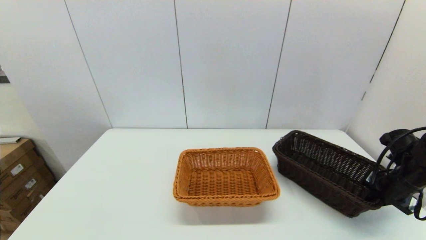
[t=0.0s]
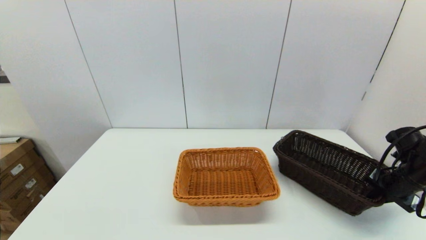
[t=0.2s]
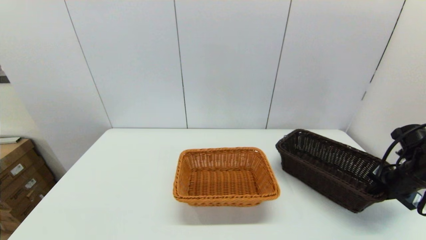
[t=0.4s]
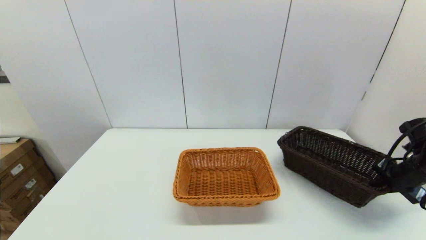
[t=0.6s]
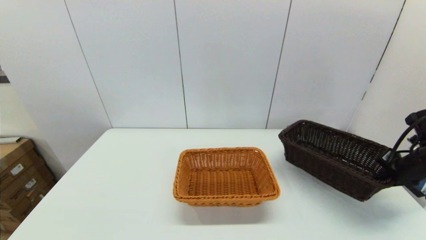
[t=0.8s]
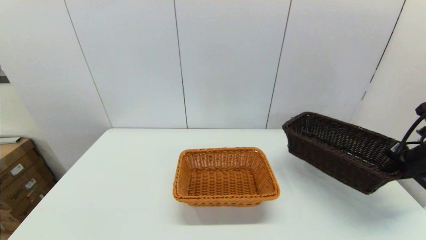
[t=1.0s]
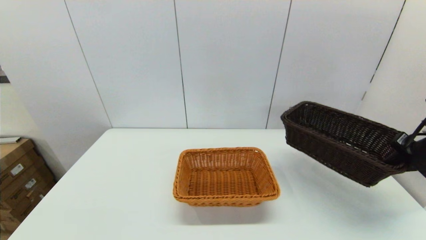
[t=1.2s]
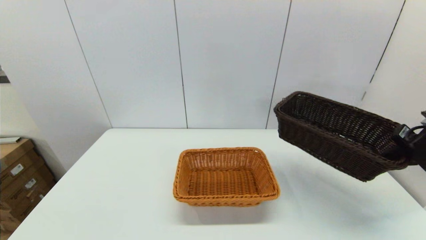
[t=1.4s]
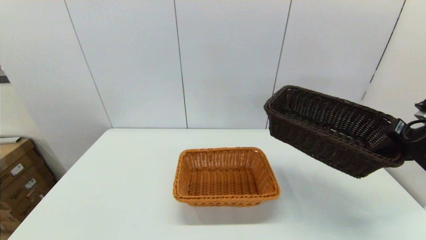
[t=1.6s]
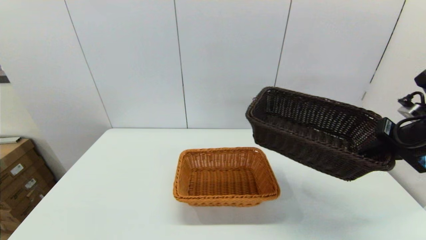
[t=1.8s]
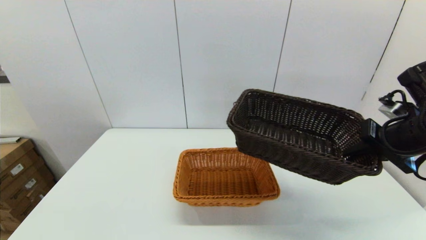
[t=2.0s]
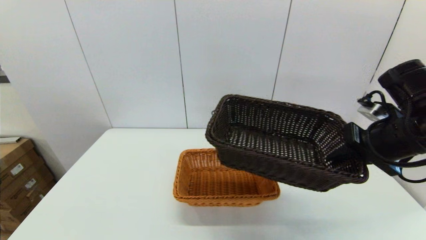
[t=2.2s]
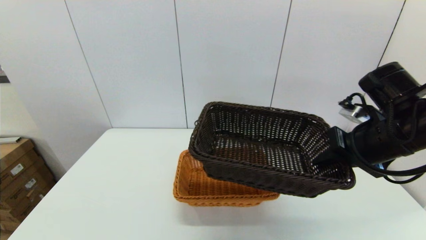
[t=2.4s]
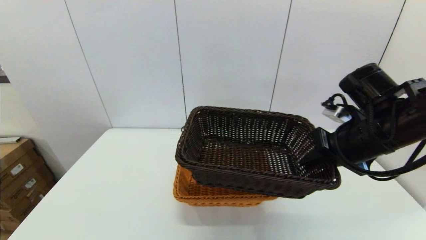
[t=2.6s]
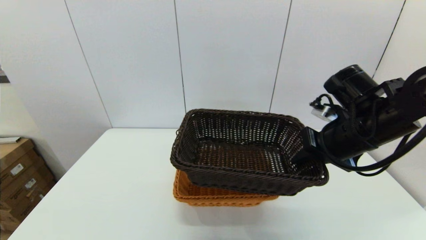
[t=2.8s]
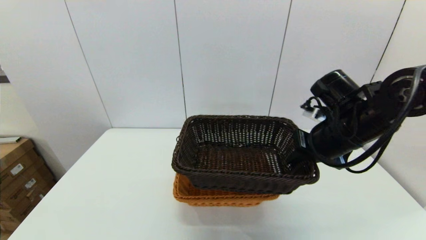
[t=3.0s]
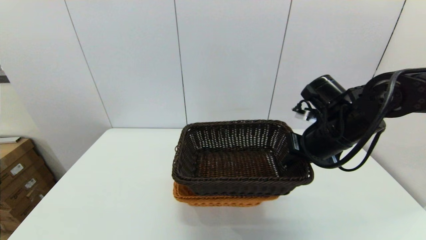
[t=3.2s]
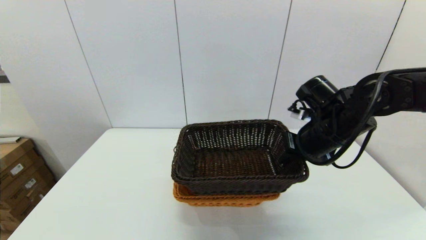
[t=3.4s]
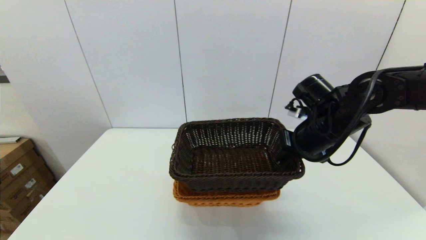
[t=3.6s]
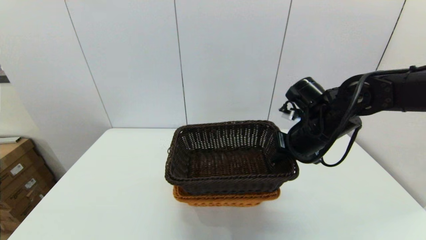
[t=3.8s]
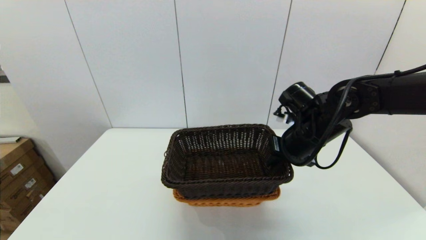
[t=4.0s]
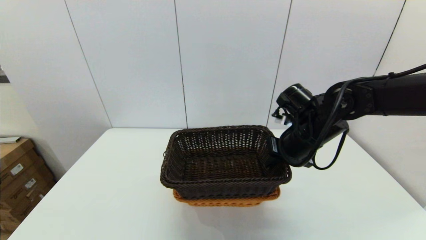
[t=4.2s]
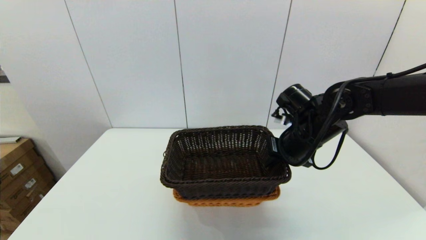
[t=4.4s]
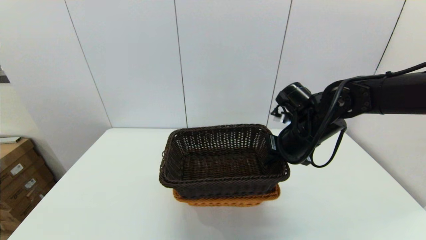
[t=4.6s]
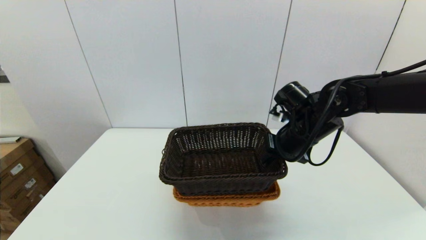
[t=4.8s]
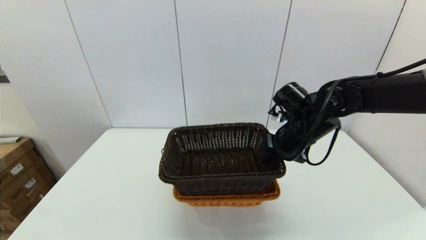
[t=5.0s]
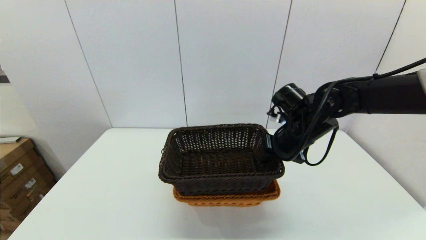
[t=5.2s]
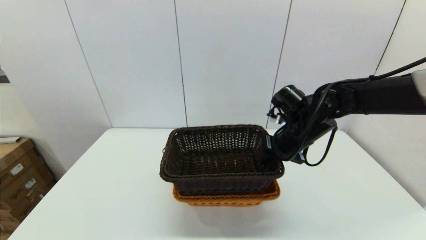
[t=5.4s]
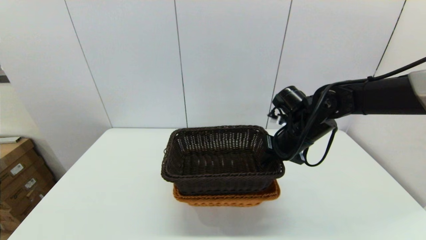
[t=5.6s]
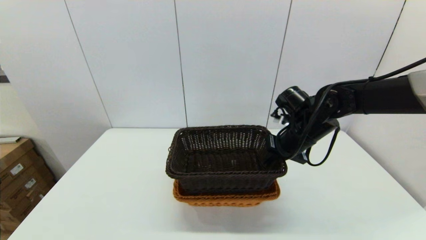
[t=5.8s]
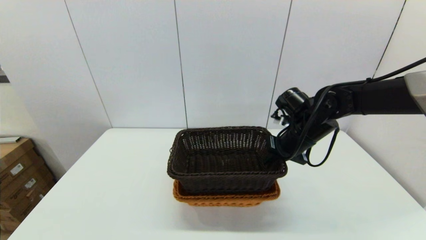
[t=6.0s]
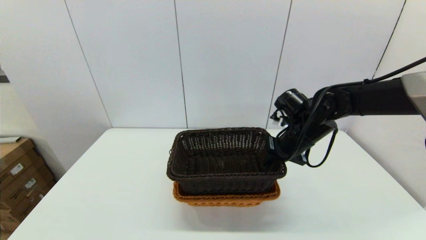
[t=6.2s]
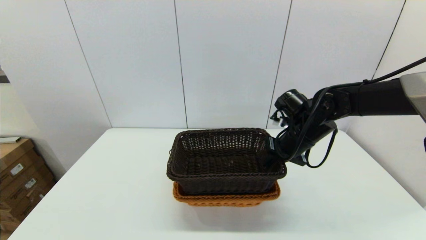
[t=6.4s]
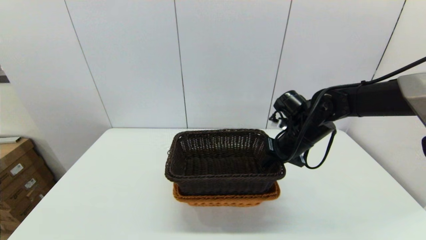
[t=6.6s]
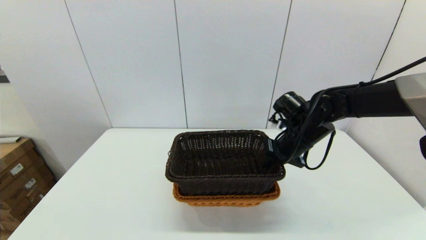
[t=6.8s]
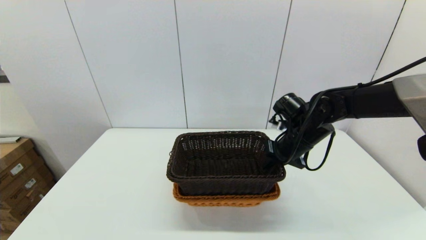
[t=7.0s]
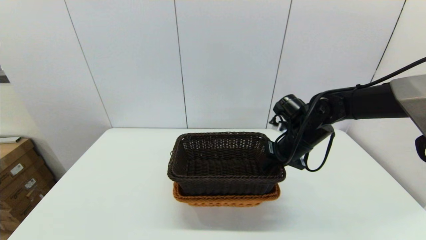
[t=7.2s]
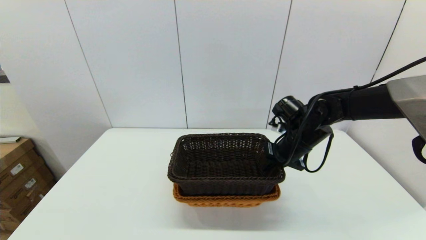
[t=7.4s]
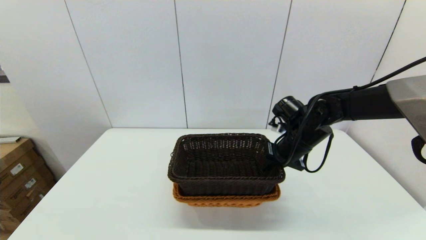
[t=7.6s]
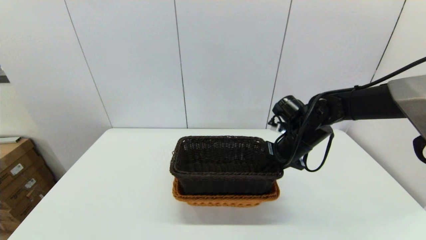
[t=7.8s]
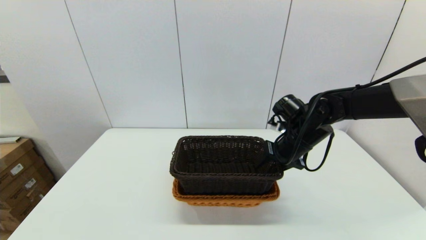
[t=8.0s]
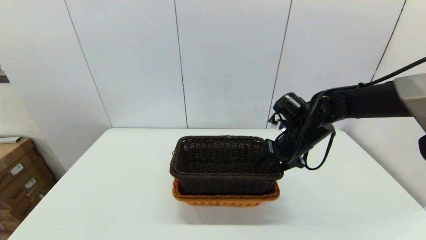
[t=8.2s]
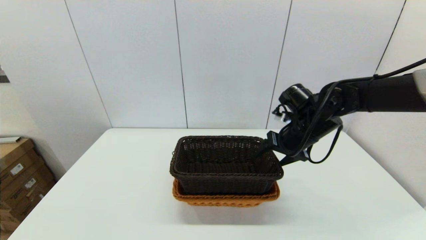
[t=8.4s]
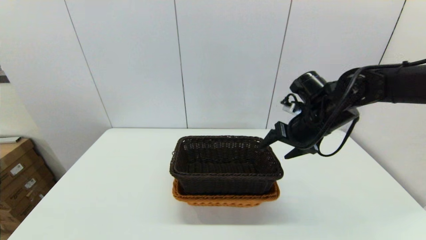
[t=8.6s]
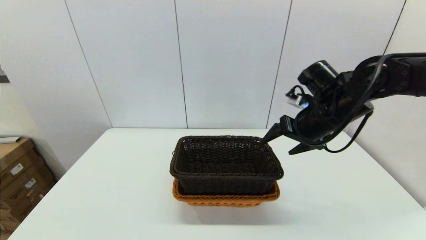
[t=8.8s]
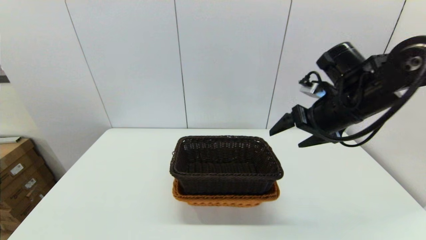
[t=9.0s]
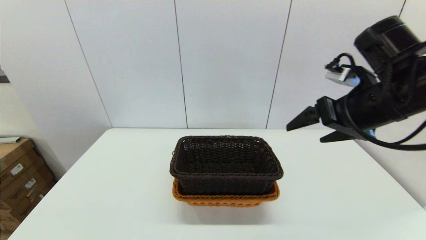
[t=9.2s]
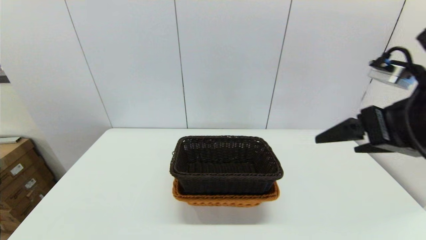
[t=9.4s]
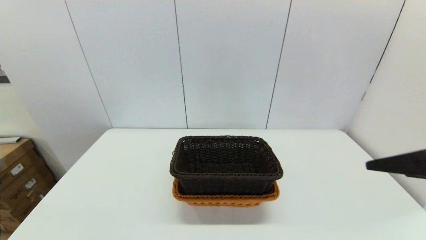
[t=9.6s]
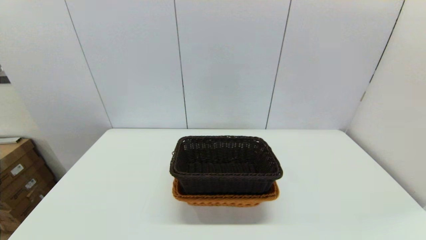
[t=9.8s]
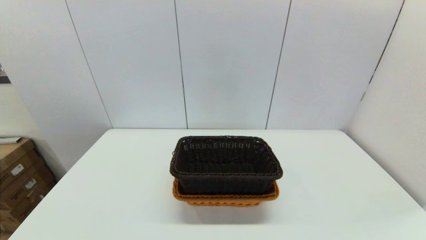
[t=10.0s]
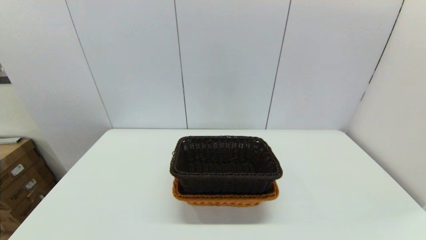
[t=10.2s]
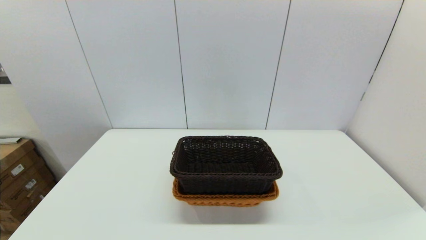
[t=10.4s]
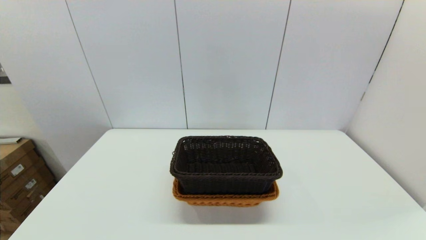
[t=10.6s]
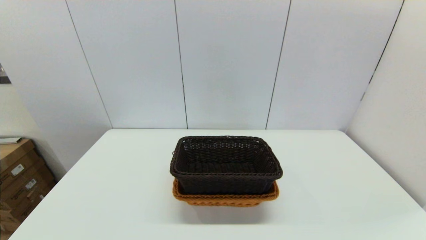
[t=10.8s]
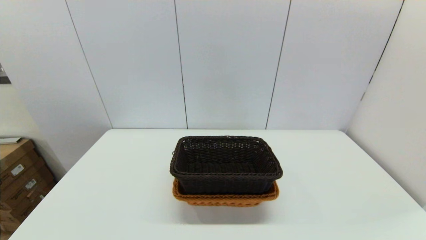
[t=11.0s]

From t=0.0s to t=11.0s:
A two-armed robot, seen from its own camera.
Task of the whole recording: stack a basket on top of another basket.
Step, from t=0.2s to t=8.6s: Place the dark basket into the light color basket with the right gripper.
From t=0.0s to t=1.6s: The right gripper goes roughly 15 cm upward.
From t=1.6s to t=3.2s: The right gripper goes roughly 15 cm to the left.
From t=3.2s to t=4.8s: The right gripper shifts by about 5 cm.
From t=4.8s to t=7.8s: There are only small adjustments of the grippers.
From t=7.8s to t=9.4s: The right gripper heads backward and upward, covering approximately 25 cm, and opens its fingers.
From t=9.4s to t=11.0s: The right gripper shifts about 25 cm backward and downward.
